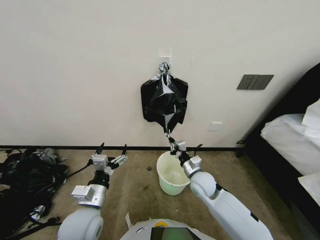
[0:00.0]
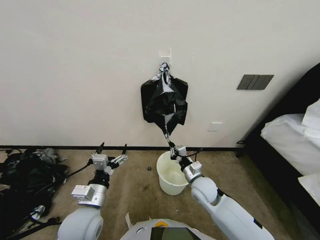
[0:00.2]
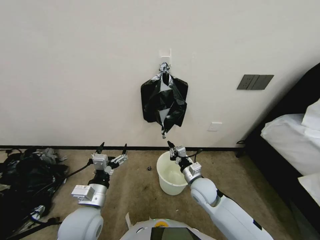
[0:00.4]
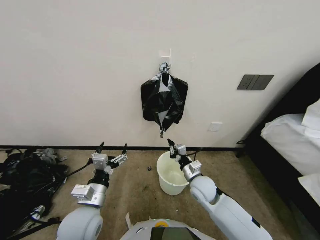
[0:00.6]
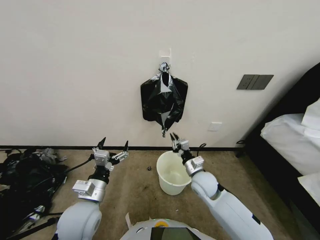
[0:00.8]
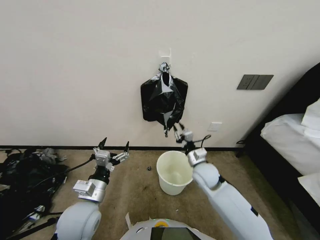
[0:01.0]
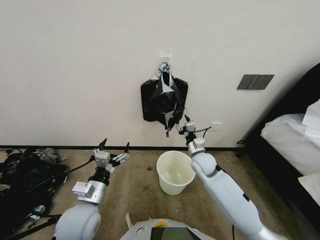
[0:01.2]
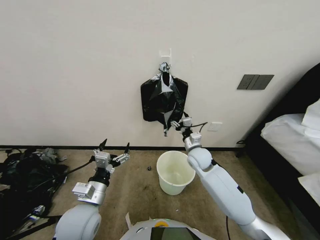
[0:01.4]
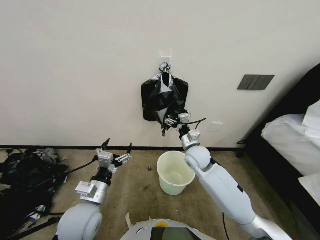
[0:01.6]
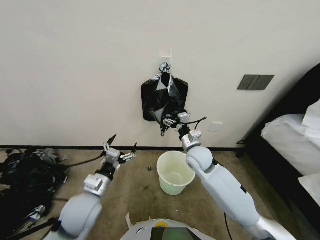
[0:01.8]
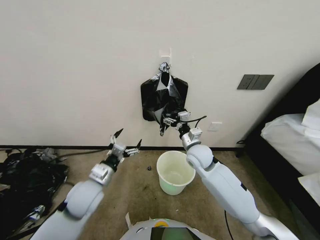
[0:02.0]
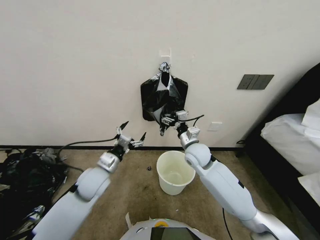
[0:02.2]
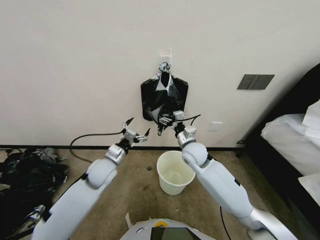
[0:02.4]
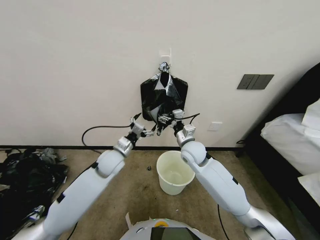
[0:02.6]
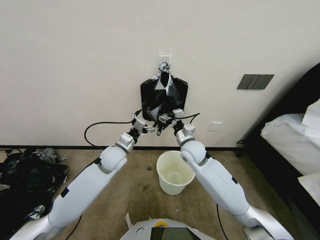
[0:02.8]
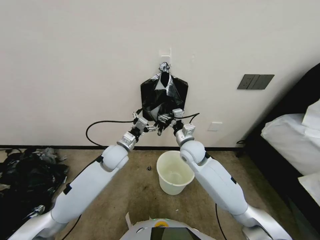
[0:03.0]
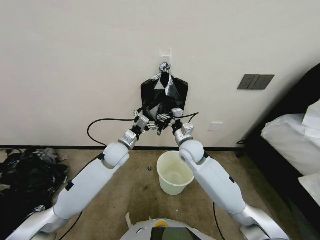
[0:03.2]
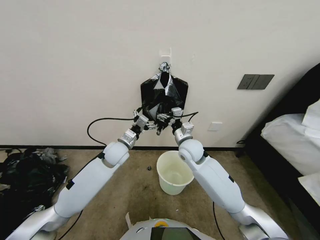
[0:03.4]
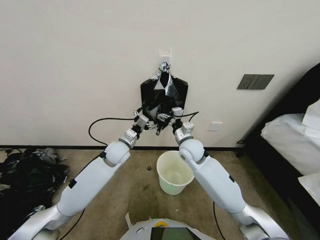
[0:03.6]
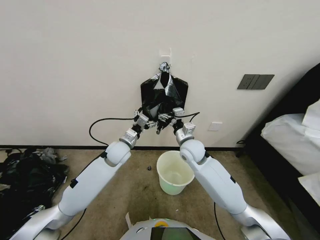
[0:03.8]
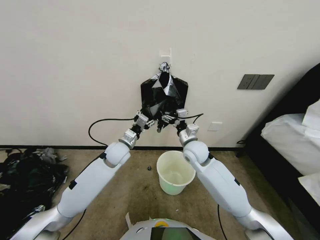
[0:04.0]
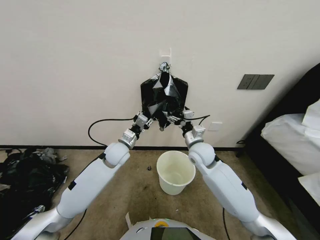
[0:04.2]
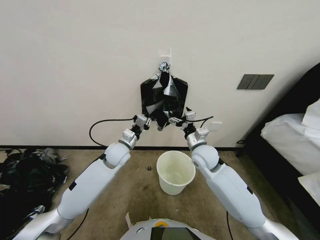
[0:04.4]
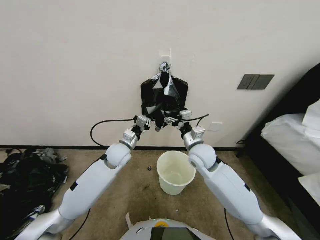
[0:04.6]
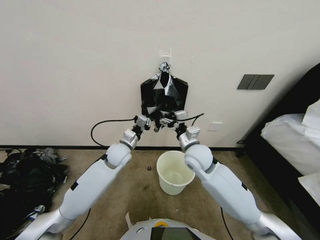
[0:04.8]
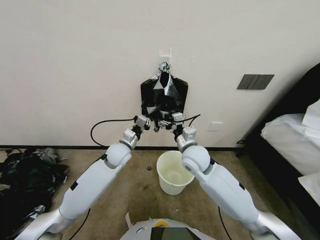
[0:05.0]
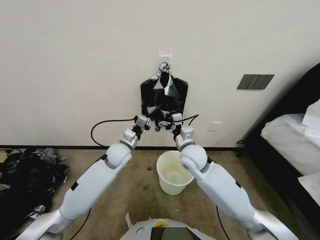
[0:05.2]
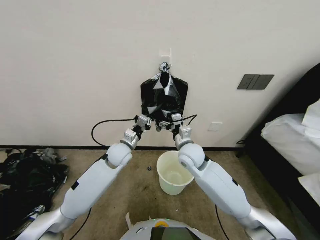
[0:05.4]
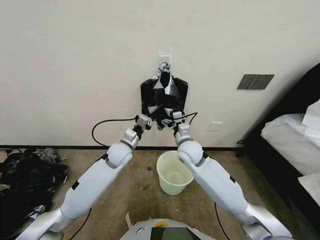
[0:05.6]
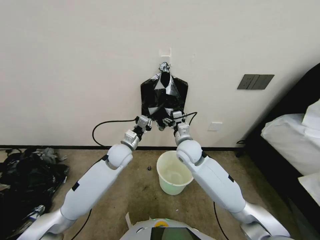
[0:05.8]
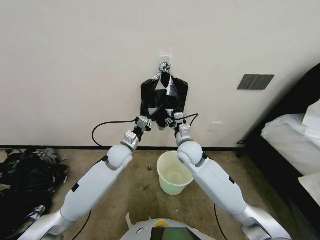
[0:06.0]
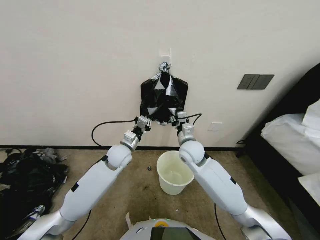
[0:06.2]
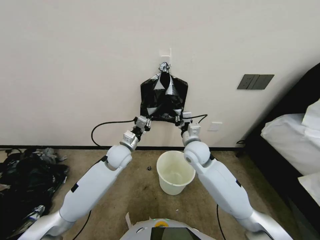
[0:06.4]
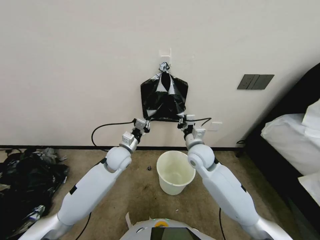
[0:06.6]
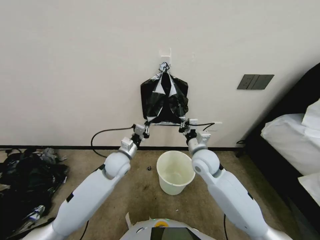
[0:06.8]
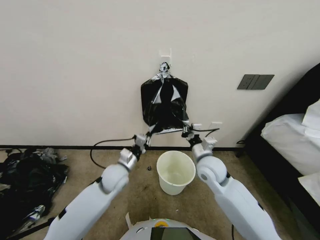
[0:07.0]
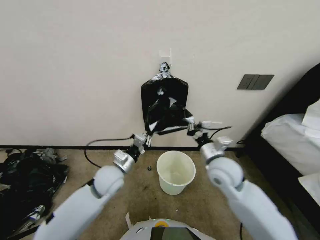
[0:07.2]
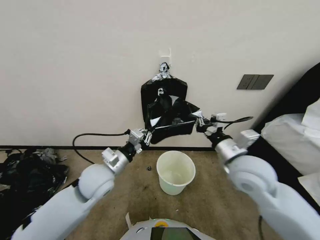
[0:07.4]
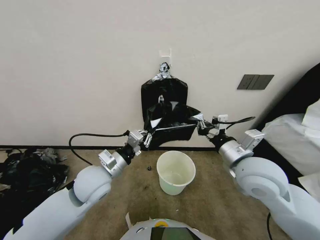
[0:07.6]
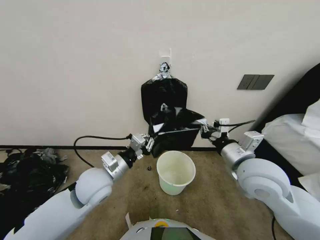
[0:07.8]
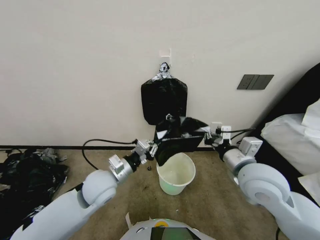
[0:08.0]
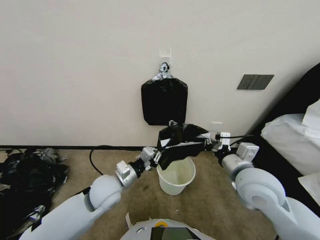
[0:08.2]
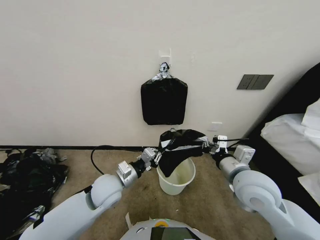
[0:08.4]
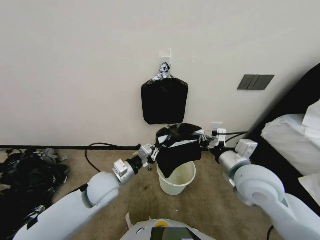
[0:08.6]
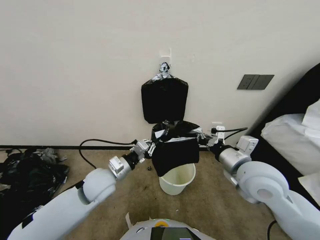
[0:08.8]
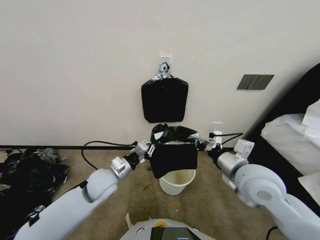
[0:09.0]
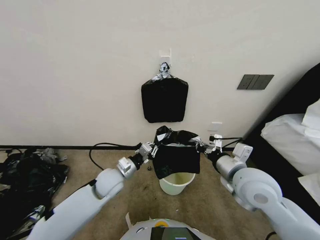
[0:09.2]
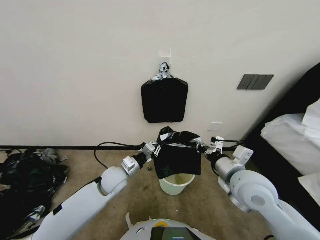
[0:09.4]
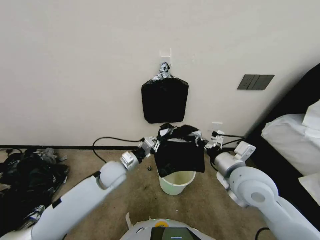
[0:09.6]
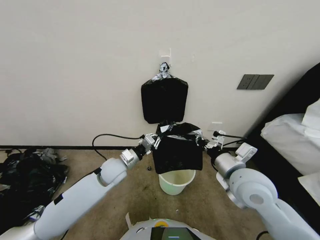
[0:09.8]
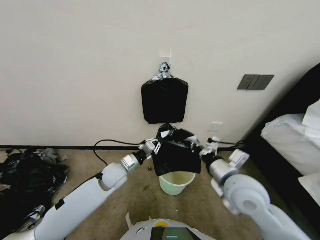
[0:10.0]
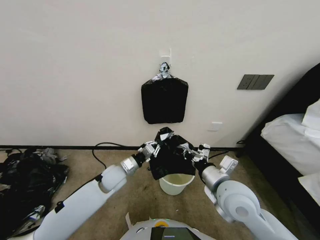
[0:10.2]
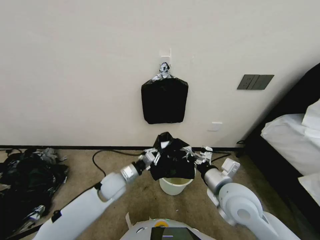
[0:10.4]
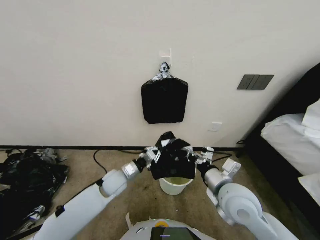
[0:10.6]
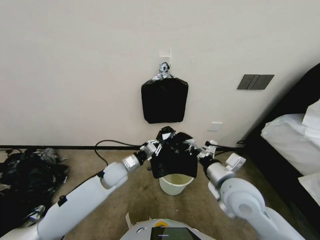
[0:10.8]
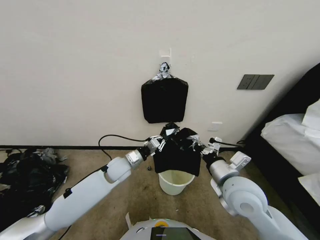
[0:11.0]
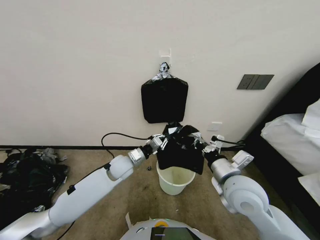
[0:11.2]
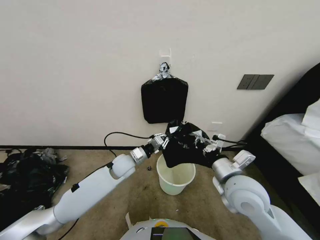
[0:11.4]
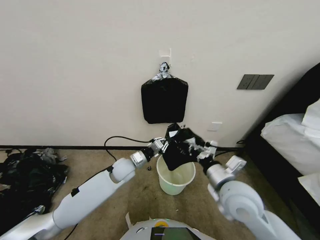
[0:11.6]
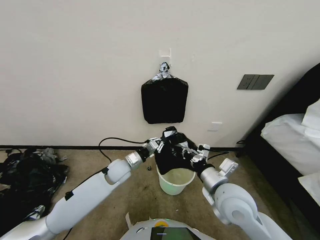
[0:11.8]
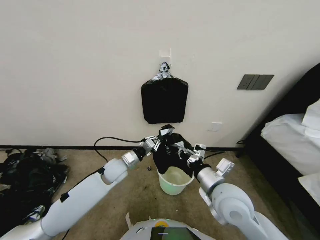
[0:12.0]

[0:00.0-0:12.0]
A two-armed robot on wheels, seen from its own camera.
Task of the whole recording: Place a trash bag onto the trash bin.
0:00.0 to 0:01.6: The right gripper moves forward and upward, roughly 10 cm, and opens its fingers.
0:01.6 to 0:03.0: The left gripper heads forward, covering approximately 20 cm.
0:03.0 to 0:04.4: The left gripper closes up.
0:04.4 to 0:06.0: The right gripper travels to the left by some 5 cm.
0:06.0 to 0:07.6: The left gripper shifts some 15 cm backward and upward, while the right gripper is displaced backward, to the right and upward by some 20 cm, and closes up.
0:09.0 to 0:10.4: The grippers both shift downward by approximately 5 cm.

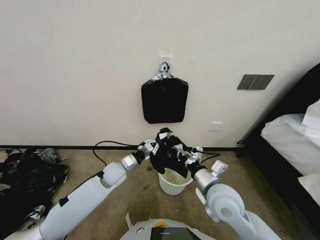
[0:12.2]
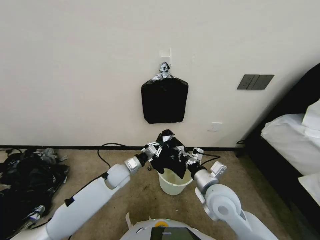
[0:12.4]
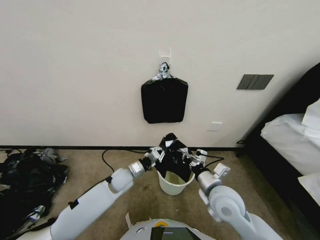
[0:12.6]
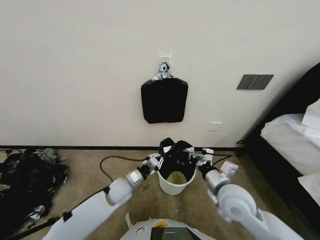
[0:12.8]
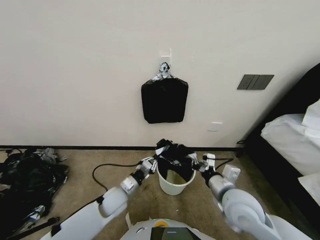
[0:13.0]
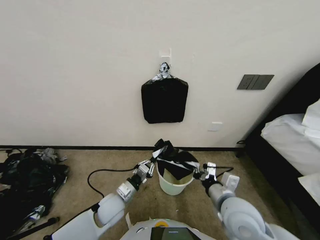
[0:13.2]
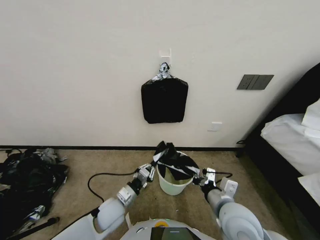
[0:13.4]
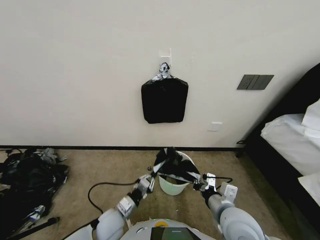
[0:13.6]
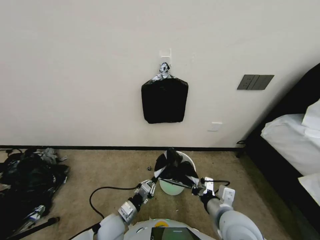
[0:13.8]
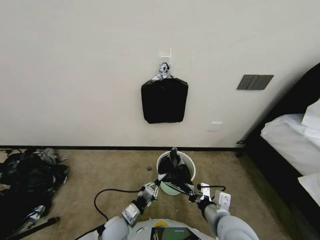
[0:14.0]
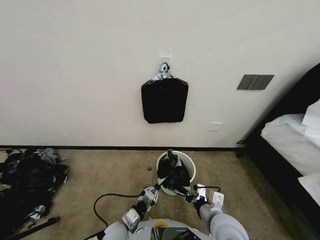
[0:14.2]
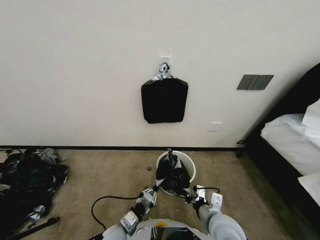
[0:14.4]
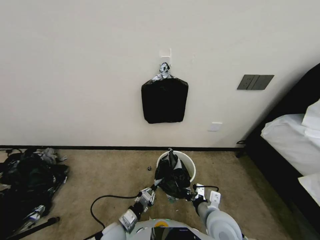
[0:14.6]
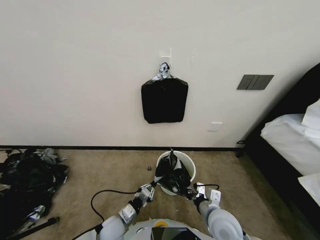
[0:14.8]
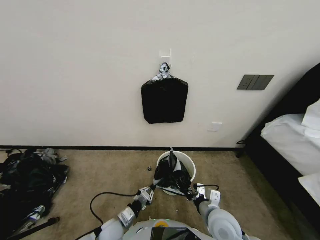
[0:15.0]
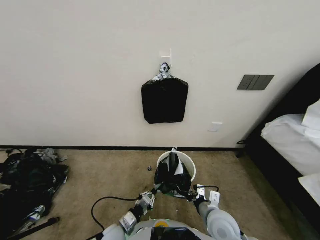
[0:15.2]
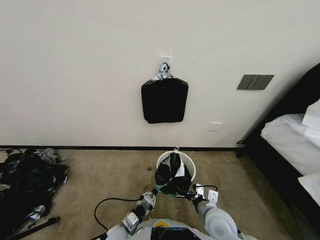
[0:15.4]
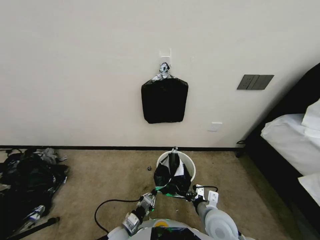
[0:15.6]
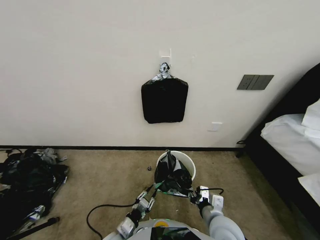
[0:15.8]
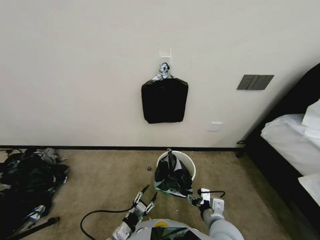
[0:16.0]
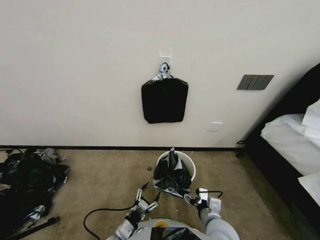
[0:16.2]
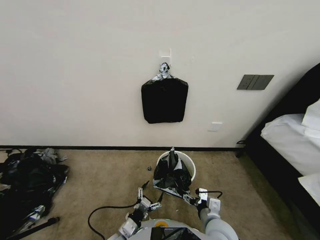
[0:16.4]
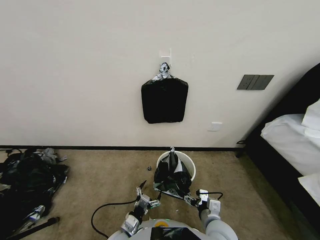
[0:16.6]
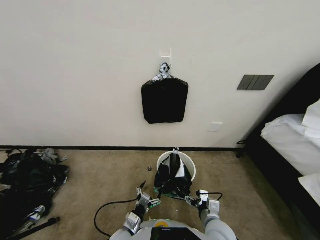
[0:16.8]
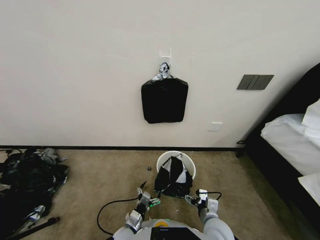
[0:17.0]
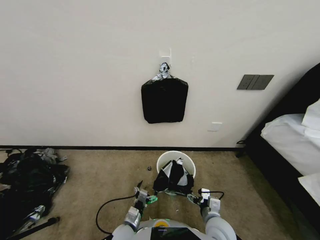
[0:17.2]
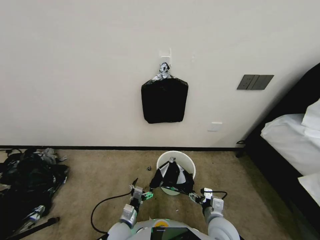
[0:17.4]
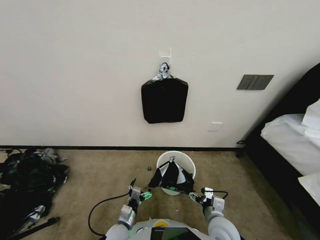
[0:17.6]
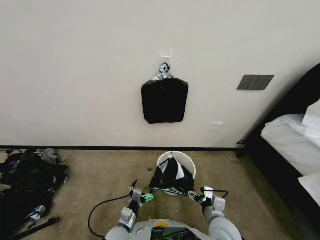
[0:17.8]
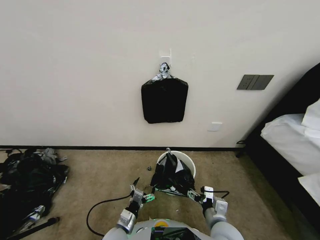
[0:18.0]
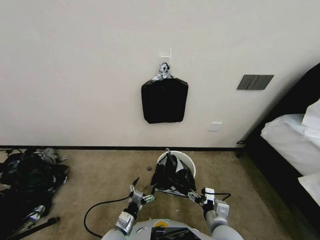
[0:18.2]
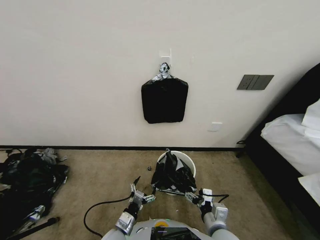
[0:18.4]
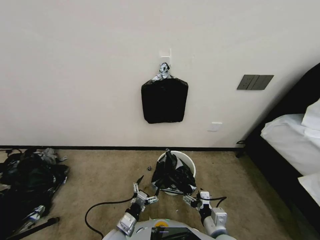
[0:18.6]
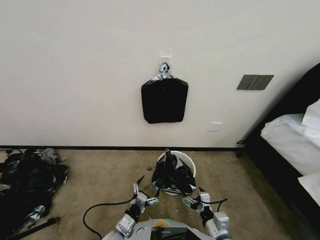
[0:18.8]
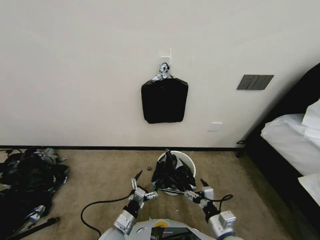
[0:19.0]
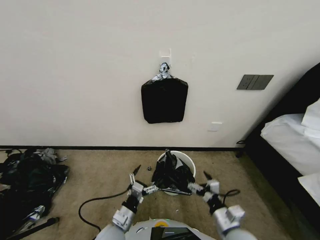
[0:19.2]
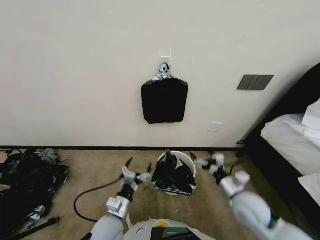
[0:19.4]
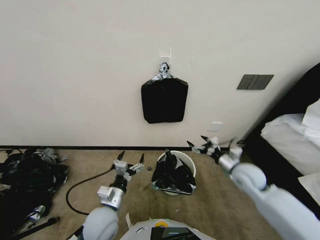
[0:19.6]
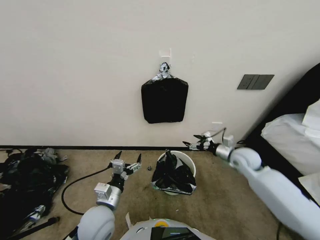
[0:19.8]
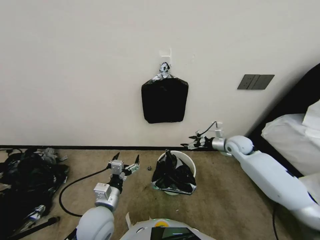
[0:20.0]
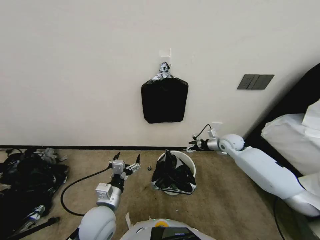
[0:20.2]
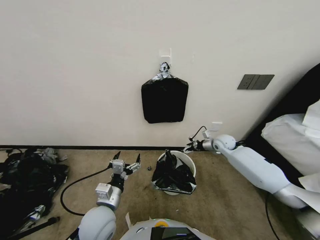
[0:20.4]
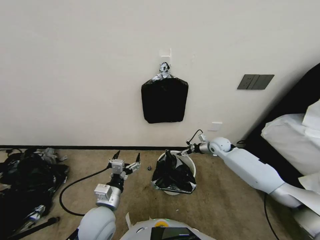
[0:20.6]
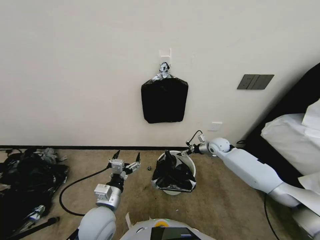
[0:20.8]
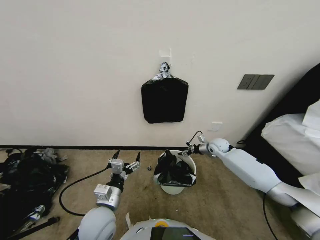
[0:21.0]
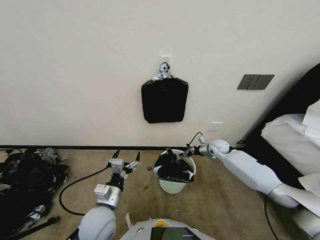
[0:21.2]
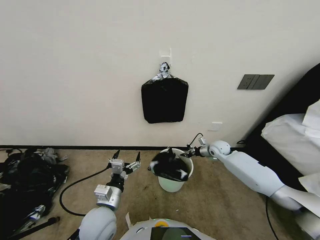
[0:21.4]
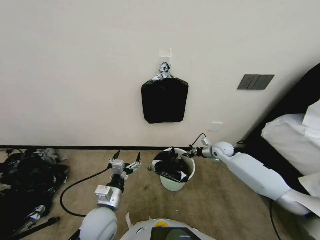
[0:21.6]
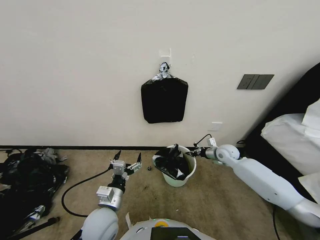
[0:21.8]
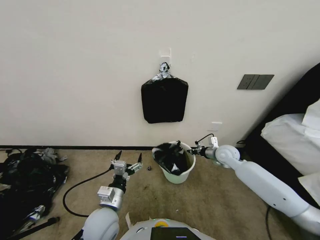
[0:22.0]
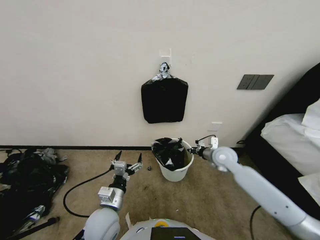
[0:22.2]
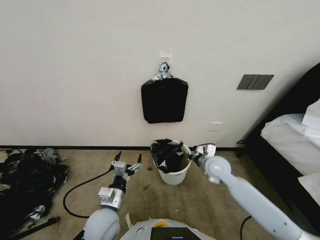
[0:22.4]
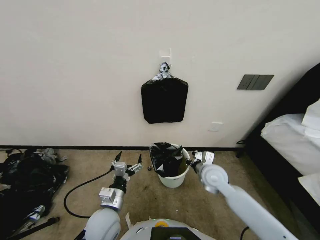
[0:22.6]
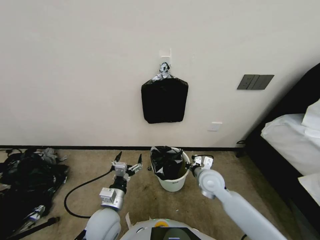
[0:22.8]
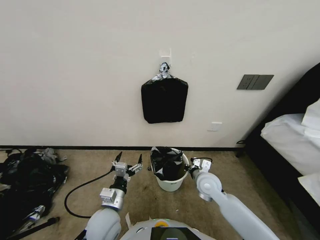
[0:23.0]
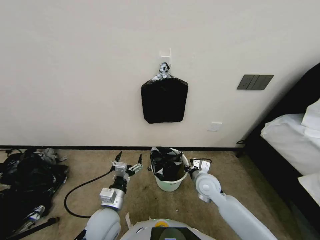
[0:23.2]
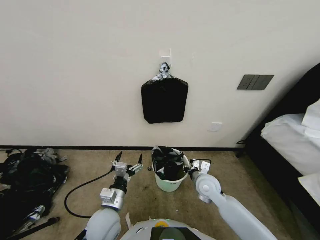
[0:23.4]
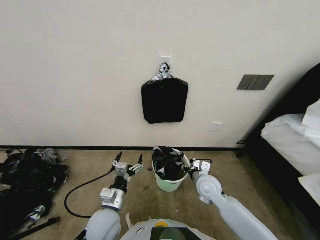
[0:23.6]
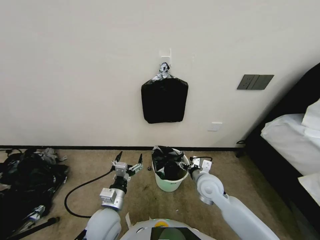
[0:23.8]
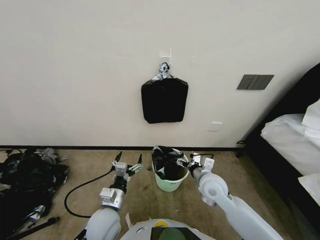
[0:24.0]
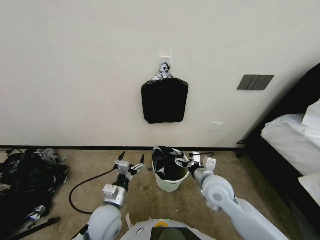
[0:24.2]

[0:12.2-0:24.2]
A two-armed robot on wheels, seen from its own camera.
Task of the whole recording: Place a trash bag onto the trash bin.
0:12.2 to 0:13.8: The left gripper moves backward and downward, roughly 20 cm. Meanwhile the right gripper shifts approximately 5 cm backward.
0:13.8 to 0:15.2: The grippers both shift downward by about 5 cm.
0:15.2 to 0:16.6: The left gripper opens, while the right gripper opens.
0:16.6 to 0:18.2: The grippers make only small movements.
0:18.2 to 0:19.8: The left gripper goes about 15 cm upward. Meanwhile the right gripper goes approximately 30 cm forward, to the right and upward.
0:19.8 to 0:21.2: The right gripper moves forward and downward, some 15 cm, and closes its fingers.
0:21.2 to 0:22.6: The right gripper travels backward and to the left by roughly 20 cm.
0:22.6 to 0:24.2: The right gripper moves backward, about 5 cm, and opens up.
